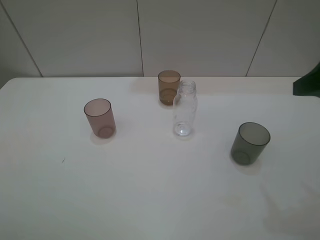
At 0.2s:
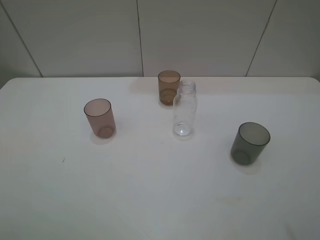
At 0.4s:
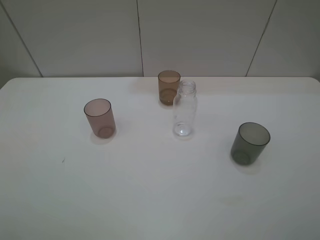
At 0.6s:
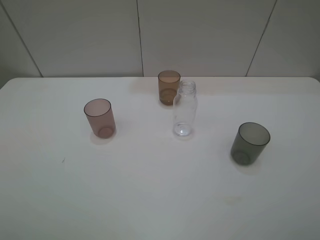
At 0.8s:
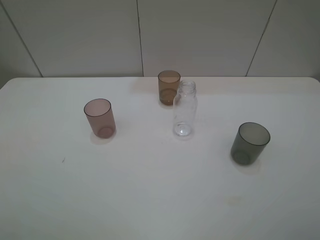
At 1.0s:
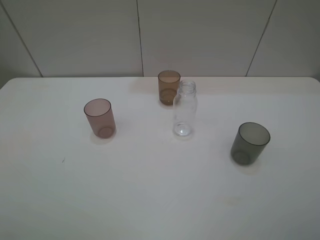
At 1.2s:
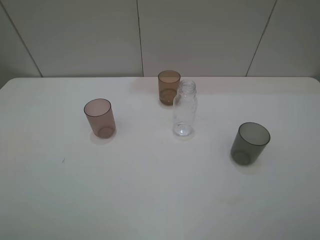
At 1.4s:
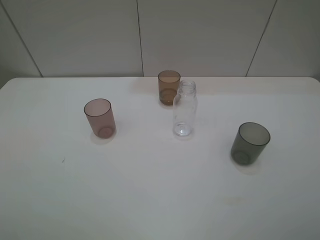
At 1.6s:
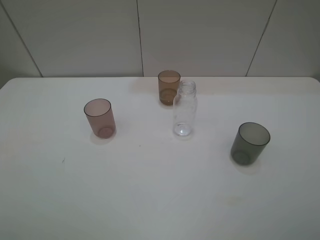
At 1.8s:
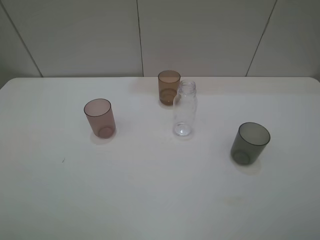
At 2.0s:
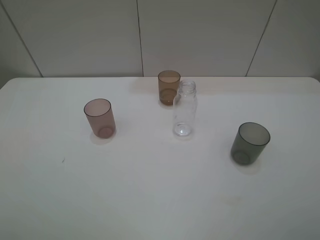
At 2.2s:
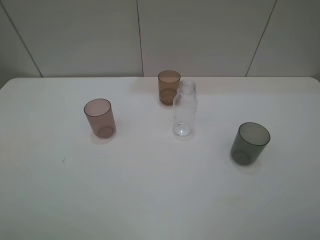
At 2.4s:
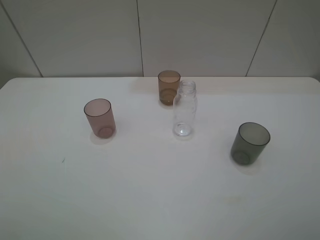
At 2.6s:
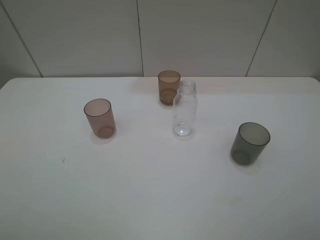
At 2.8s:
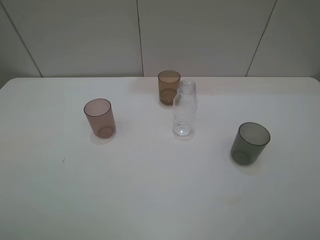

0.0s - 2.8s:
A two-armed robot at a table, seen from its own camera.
Task of the whole recording: pick up the bottle filled with water and pour water into the middle cup of the three cups.
0.0s - 1.4s: The right gripper is displaced backward by about 15 cm.
1.4s - 2.8s: Neither gripper changes place.

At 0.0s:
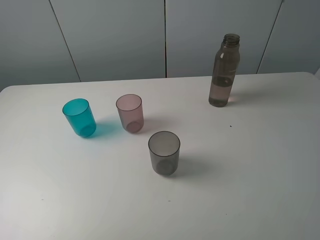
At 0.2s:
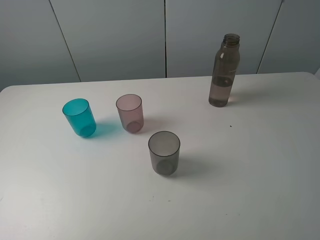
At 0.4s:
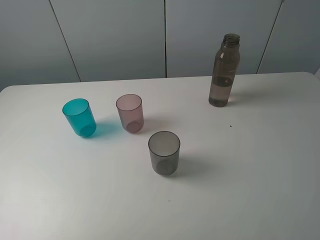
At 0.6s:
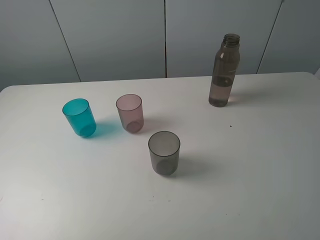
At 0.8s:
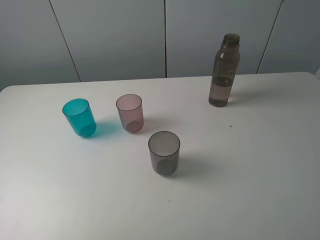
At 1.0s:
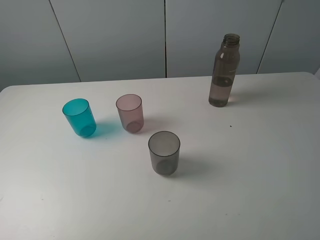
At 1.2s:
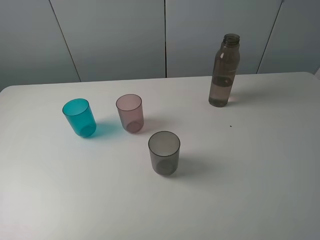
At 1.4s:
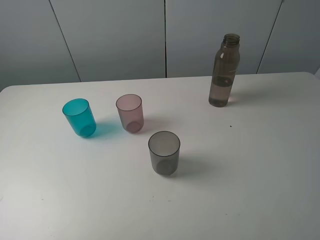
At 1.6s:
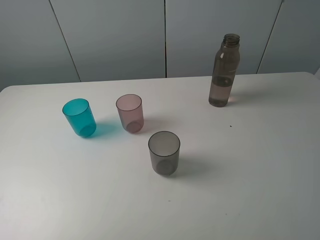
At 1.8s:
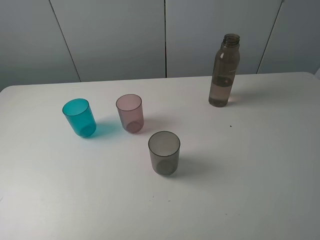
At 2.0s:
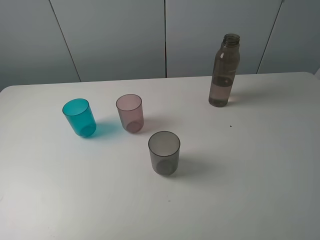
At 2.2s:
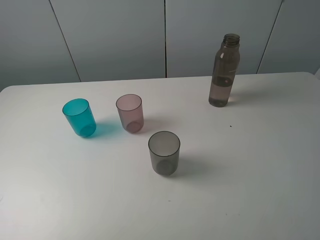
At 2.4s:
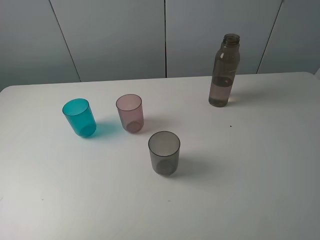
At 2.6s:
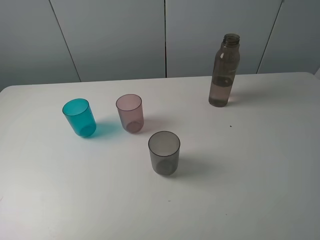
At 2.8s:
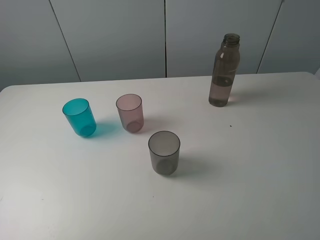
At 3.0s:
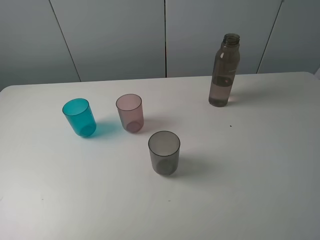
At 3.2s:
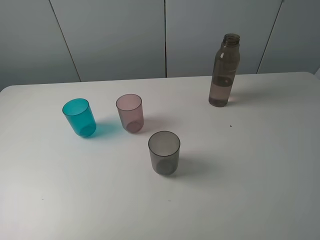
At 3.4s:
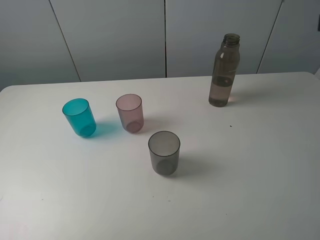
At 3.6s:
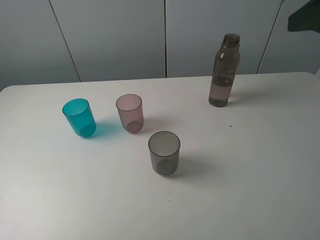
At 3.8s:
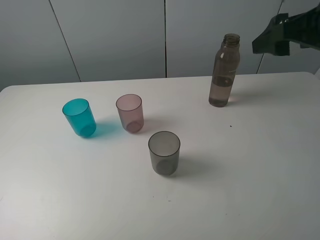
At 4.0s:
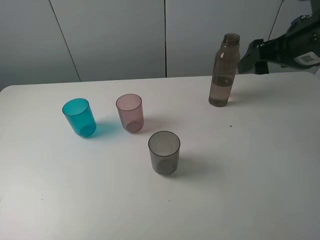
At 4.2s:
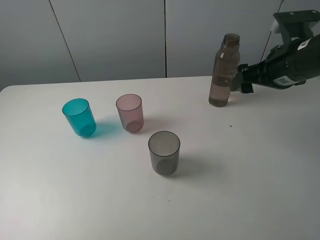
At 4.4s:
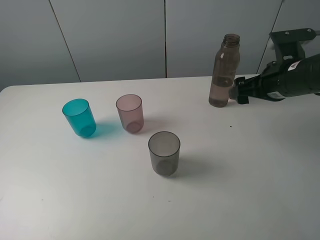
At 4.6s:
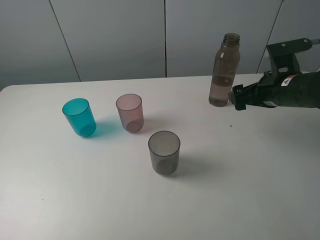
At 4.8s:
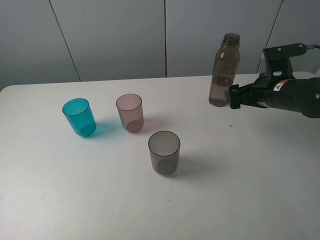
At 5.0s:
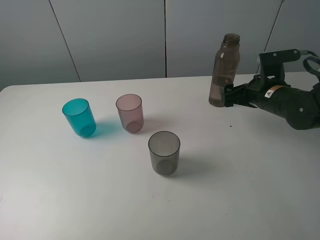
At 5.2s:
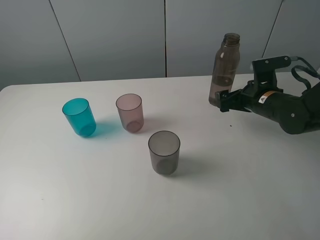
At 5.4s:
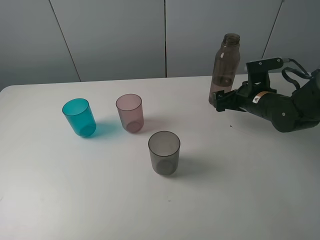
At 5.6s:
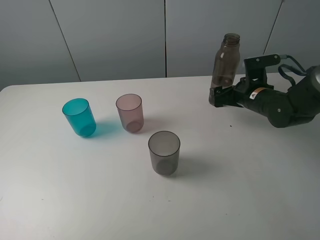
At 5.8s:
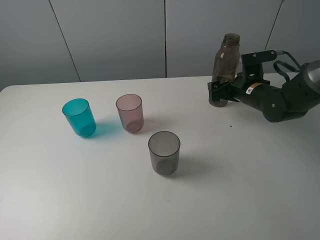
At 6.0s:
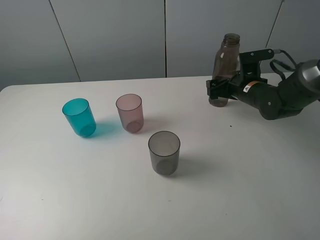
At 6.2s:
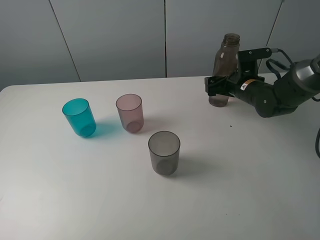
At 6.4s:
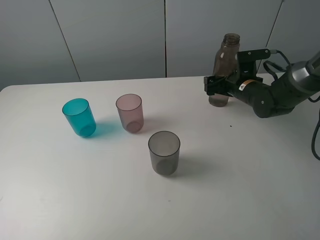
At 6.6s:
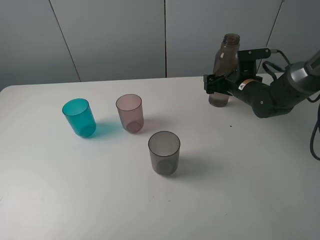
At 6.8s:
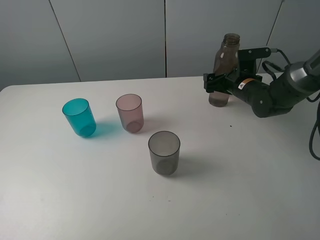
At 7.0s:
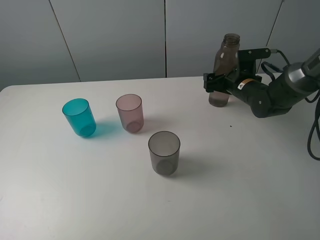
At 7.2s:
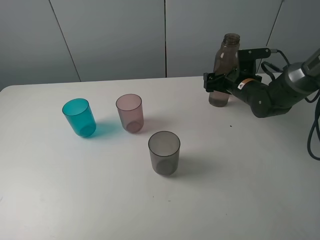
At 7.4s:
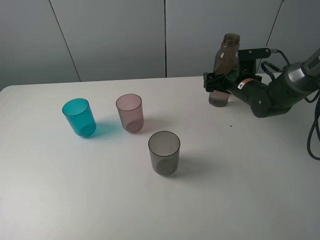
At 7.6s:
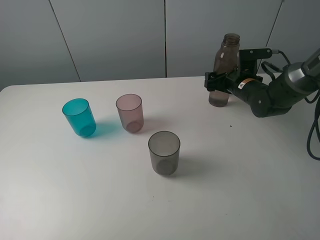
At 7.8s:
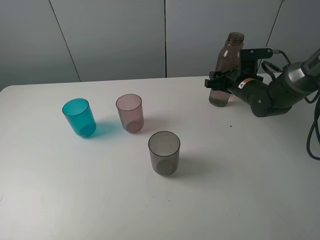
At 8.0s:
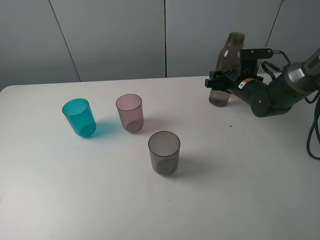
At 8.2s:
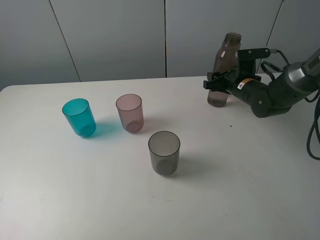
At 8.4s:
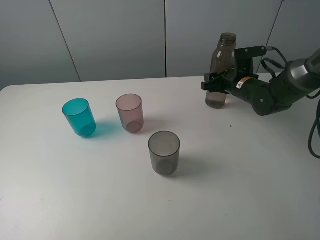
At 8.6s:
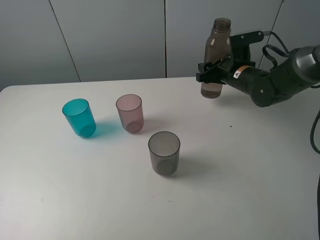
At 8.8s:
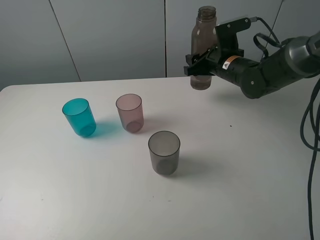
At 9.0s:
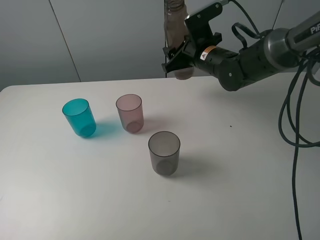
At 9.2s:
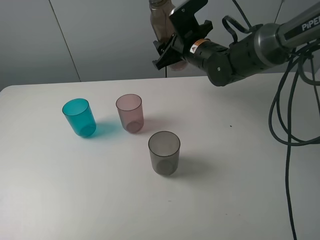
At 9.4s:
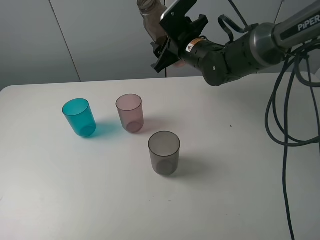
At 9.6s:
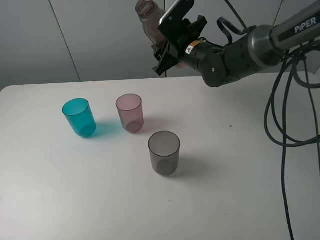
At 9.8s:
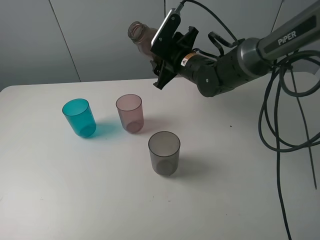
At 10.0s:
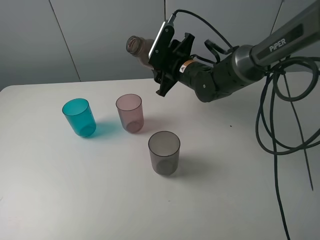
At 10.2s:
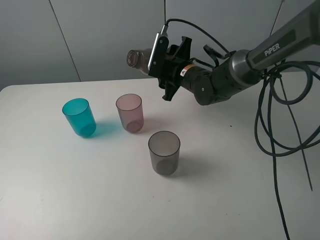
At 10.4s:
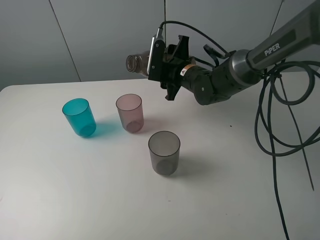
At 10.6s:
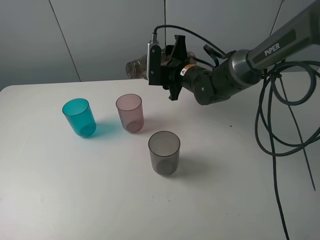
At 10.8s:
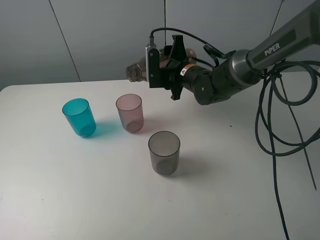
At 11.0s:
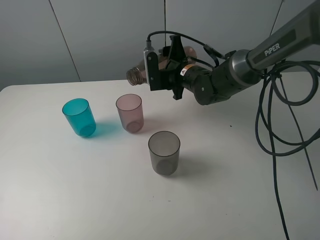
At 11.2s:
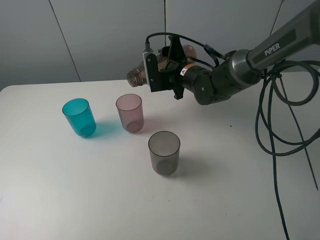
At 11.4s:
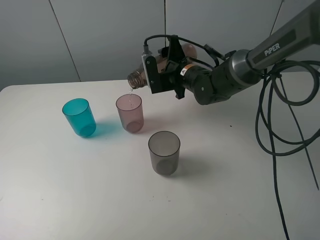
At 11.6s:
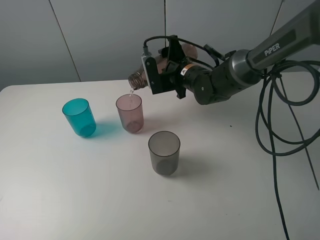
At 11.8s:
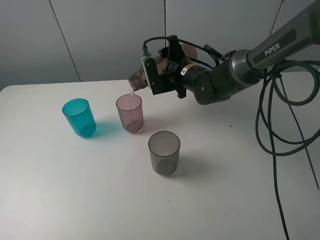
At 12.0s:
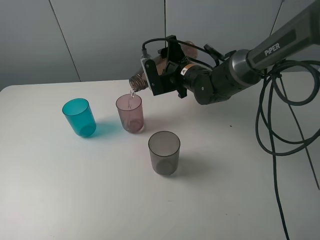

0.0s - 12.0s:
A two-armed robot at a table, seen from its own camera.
Task of the whole recording: pick up the bottle filled with water and pour water into the middle cup of the three cups.
Step, 0.0s - 8.0s: Grasp the brown bottle with the right gripper.
0.0s - 1.6s: The two grippers keep their place.
3.0s - 4.4s: The right gripper moves forward and downward, roughly 30 cm.
4.4s - 6.0s: The right gripper is displaced downward and forward by roughly 15 cm.
6.0s - 7.6s: The right gripper closes.
7.6s - 9.0s: The right gripper shifts some 15 cm to the left and upward, and closes up.
9.0s - 10.4s: The right gripper moves roughly 5 cm.

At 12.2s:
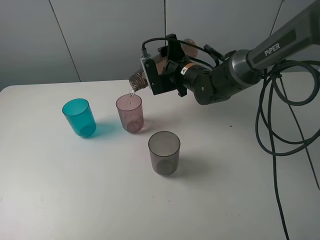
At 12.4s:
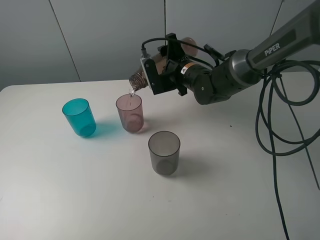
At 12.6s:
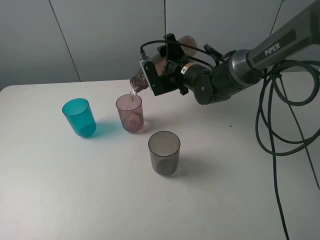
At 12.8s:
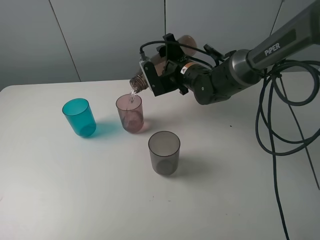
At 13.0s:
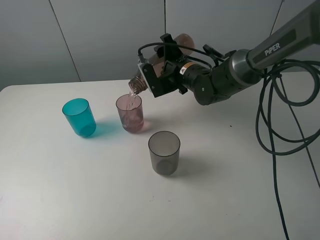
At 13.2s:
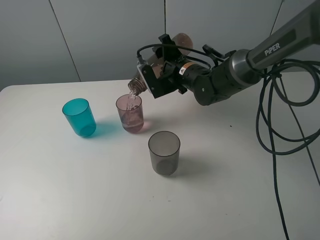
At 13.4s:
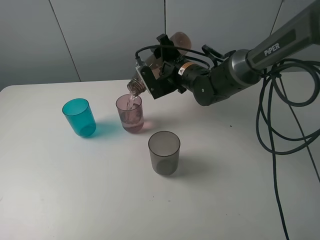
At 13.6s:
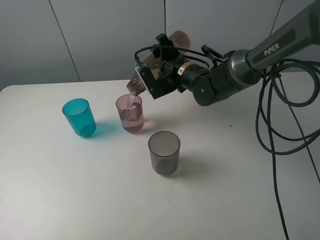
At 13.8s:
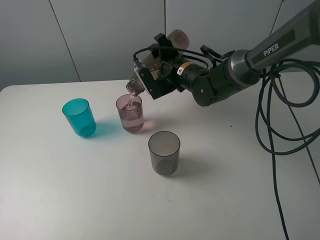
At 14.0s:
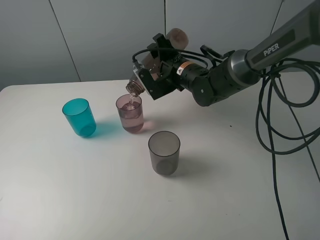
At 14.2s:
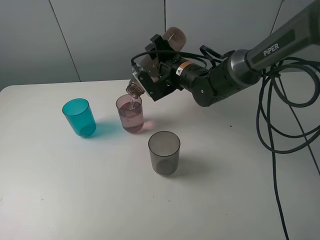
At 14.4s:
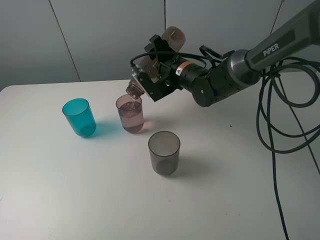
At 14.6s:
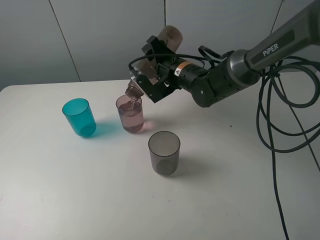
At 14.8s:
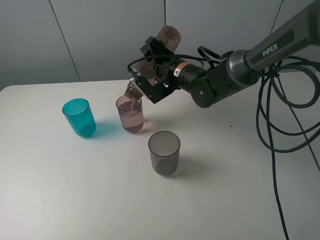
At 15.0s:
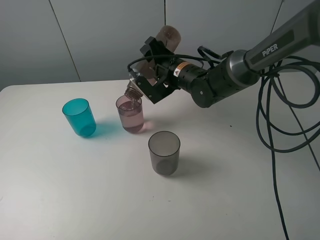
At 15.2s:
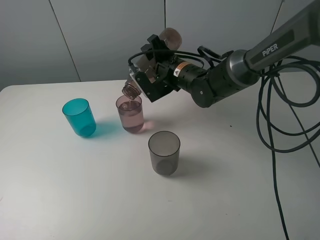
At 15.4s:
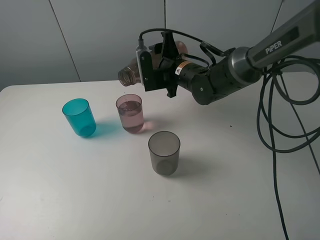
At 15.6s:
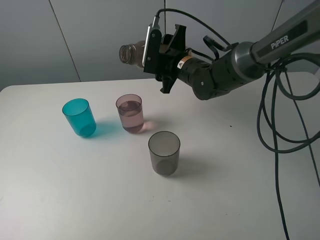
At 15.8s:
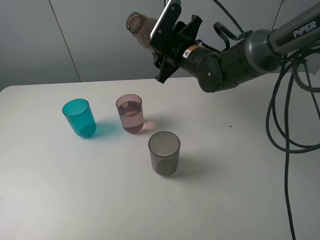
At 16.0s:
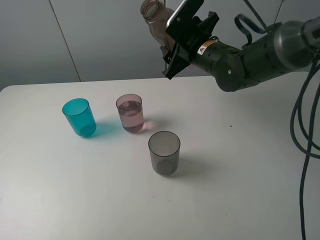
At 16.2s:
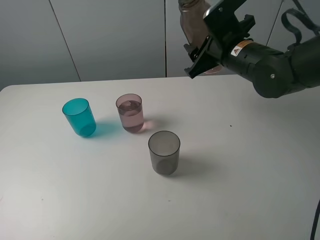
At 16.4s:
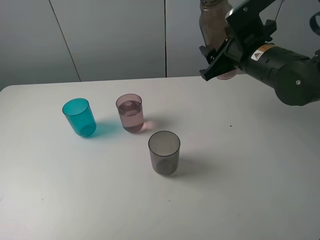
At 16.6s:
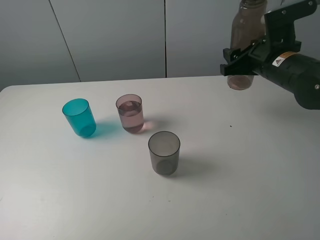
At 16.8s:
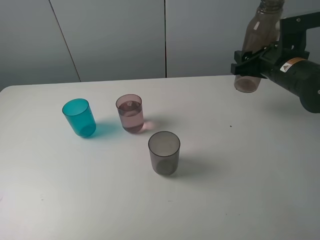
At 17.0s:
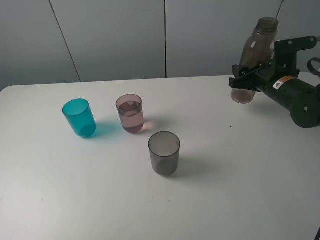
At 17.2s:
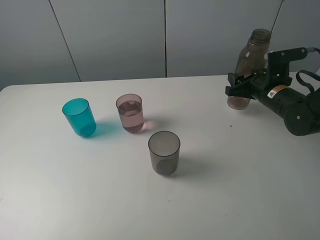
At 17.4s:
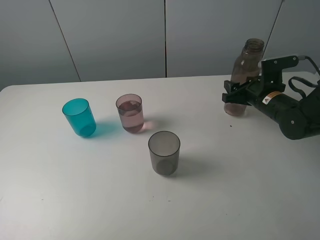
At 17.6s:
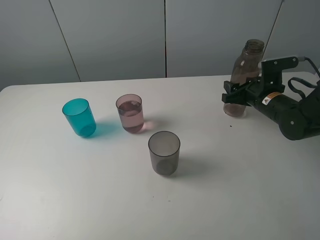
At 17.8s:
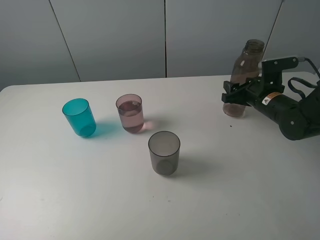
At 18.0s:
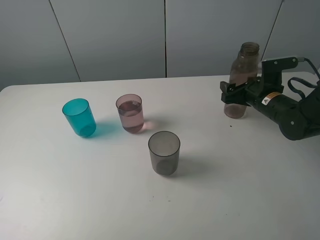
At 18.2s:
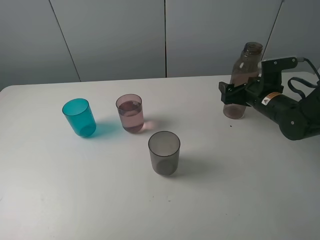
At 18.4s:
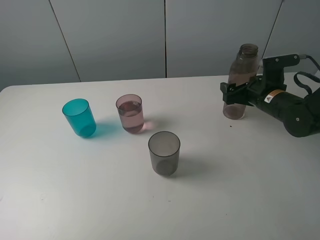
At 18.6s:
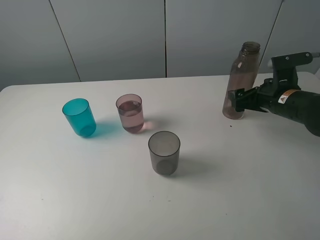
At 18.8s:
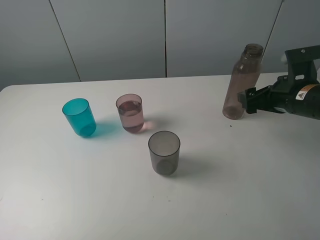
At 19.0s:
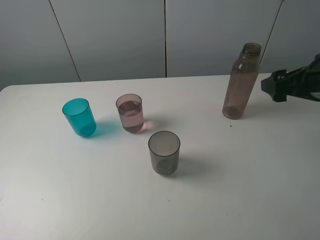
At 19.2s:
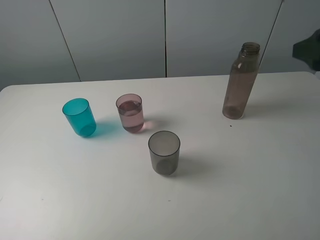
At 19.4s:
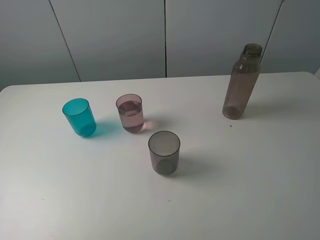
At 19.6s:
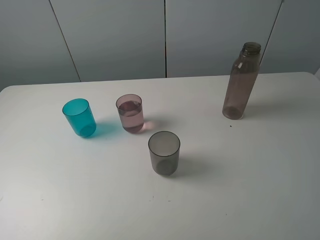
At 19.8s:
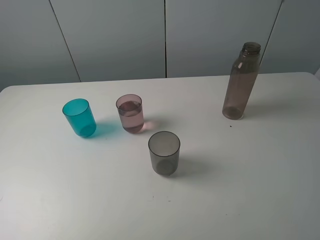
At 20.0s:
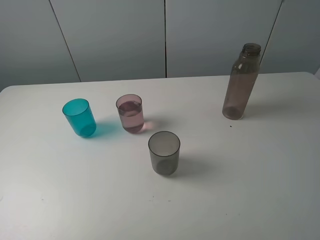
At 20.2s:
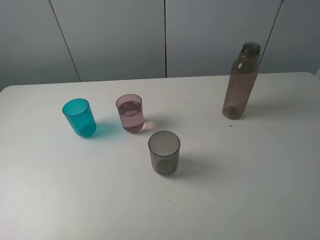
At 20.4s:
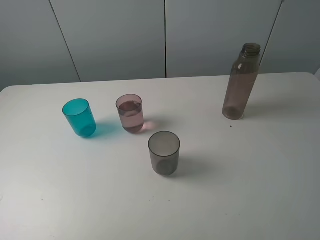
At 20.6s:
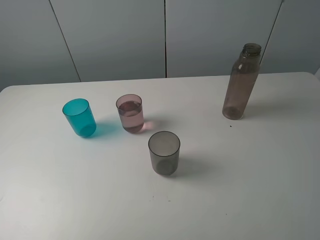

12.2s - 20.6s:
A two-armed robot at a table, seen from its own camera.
Task of the whole recording: pick up the bottle filled with water and pour water into the middle cup of the three cups.
Step, 12.2s - 15.2s: Pour water from brown bottle to red cup with the right gripper.
Step, 15.4s - 18.8s: Place the brown bottle with the right gripper.
12.2s - 13.6s: The grippers move only a little.
13.6s - 15.0s: The grippers make only small movements.
15.0s - 16.4s: The right gripper is displaced to the right, backward and upward by roughly 15 cm.
16.4s - 17.8s: The right gripper shifts about 15 cm downward and to the right.
17.8s - 19.2s: The right gripper goes roughly 25 cm upward and backward, and opens up.
19.2s - 20.6s: The right gripper heads backward, covering about 20 cm.
